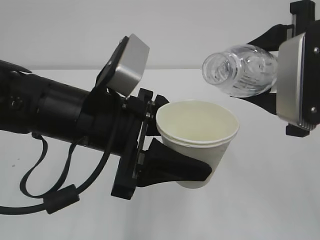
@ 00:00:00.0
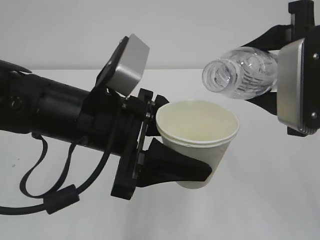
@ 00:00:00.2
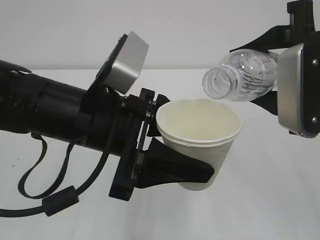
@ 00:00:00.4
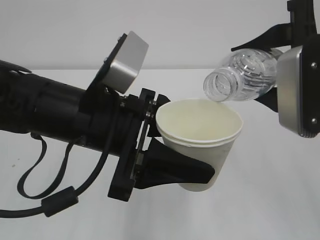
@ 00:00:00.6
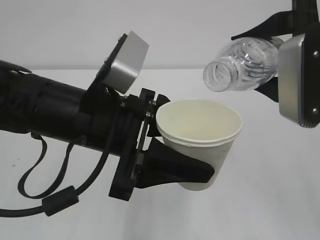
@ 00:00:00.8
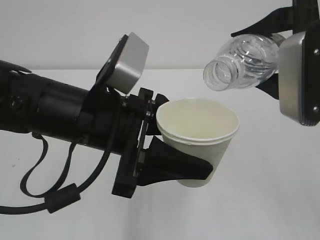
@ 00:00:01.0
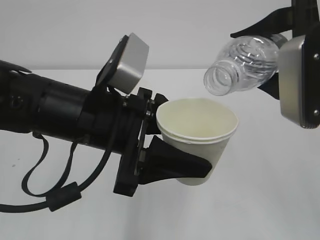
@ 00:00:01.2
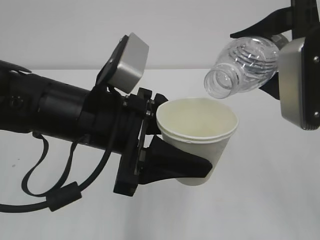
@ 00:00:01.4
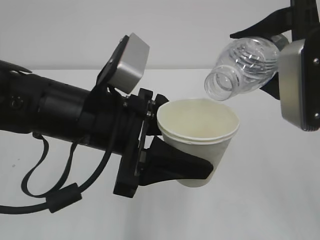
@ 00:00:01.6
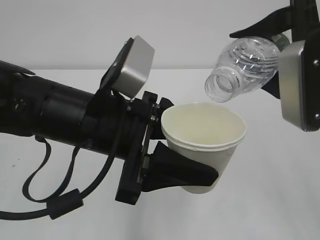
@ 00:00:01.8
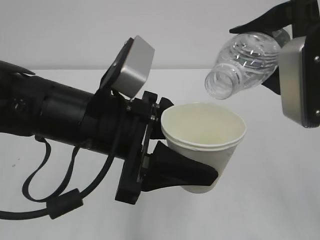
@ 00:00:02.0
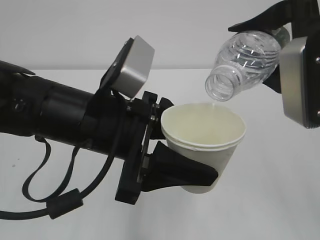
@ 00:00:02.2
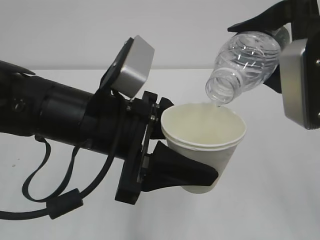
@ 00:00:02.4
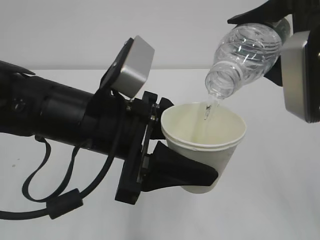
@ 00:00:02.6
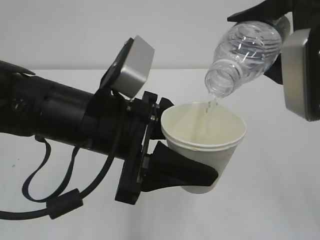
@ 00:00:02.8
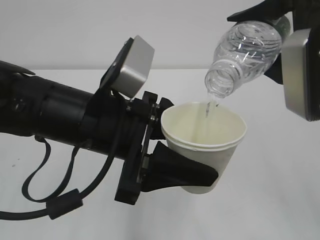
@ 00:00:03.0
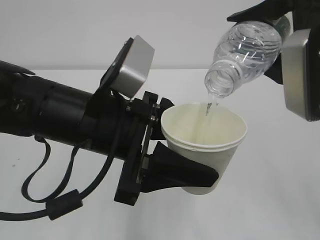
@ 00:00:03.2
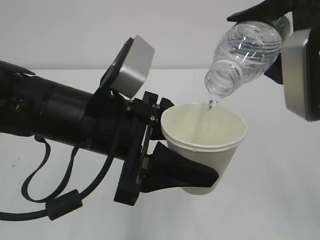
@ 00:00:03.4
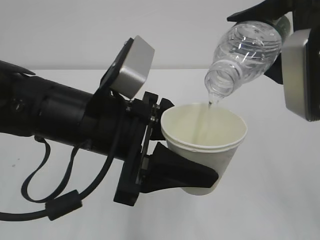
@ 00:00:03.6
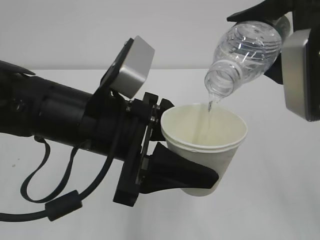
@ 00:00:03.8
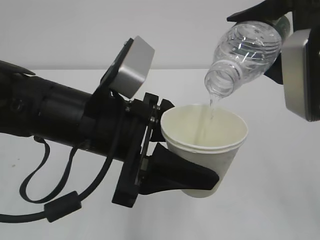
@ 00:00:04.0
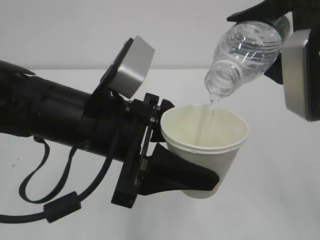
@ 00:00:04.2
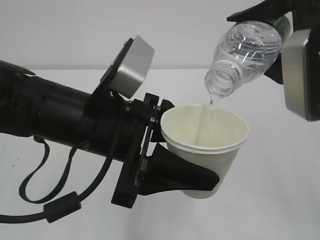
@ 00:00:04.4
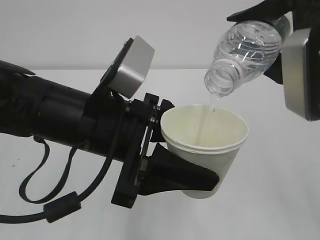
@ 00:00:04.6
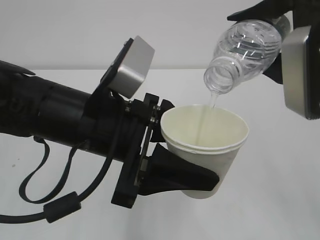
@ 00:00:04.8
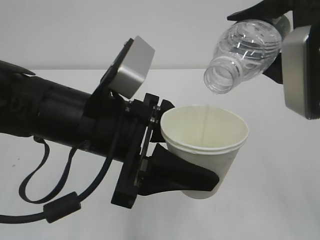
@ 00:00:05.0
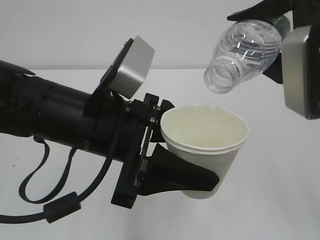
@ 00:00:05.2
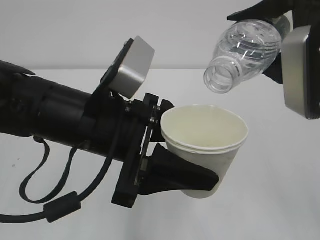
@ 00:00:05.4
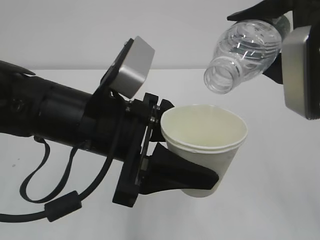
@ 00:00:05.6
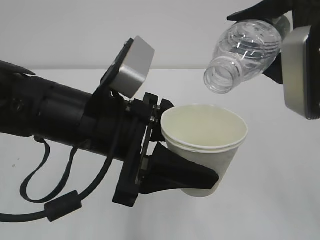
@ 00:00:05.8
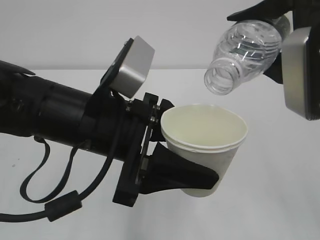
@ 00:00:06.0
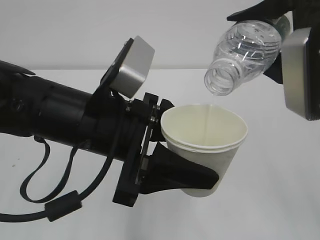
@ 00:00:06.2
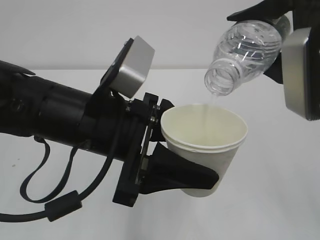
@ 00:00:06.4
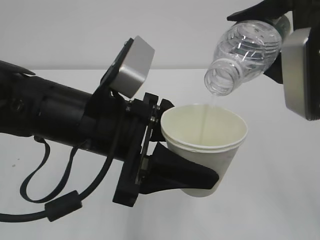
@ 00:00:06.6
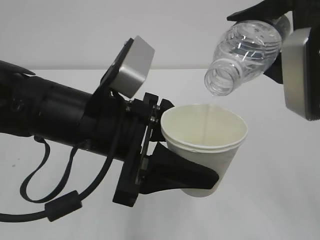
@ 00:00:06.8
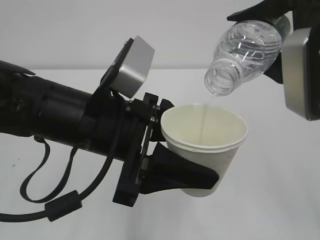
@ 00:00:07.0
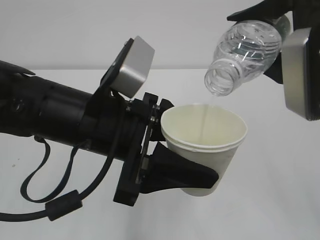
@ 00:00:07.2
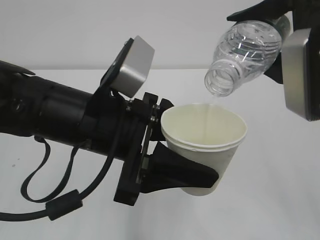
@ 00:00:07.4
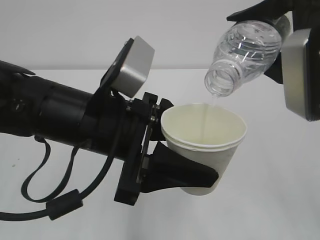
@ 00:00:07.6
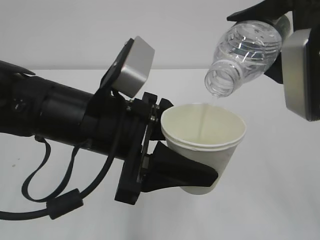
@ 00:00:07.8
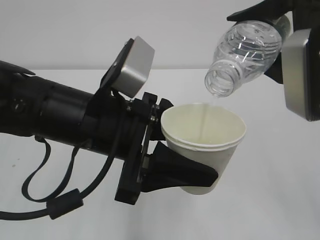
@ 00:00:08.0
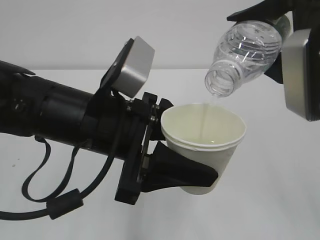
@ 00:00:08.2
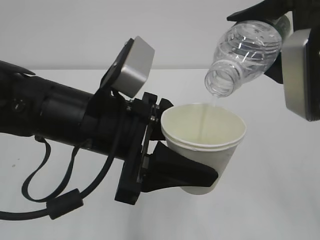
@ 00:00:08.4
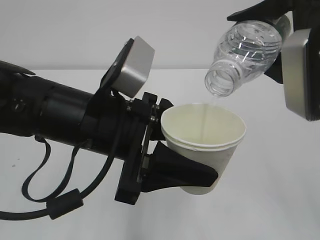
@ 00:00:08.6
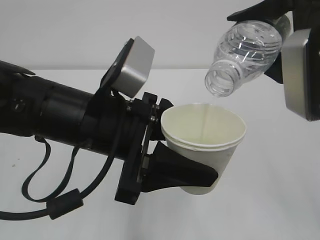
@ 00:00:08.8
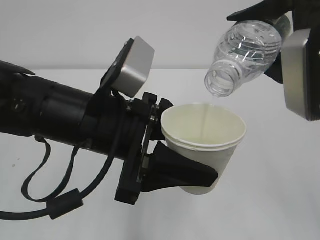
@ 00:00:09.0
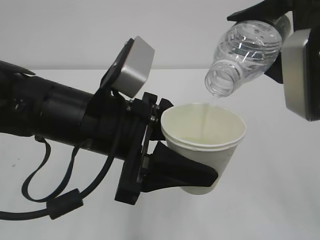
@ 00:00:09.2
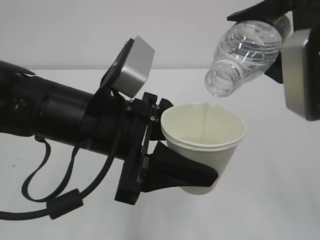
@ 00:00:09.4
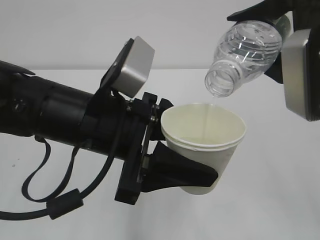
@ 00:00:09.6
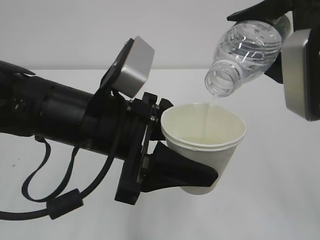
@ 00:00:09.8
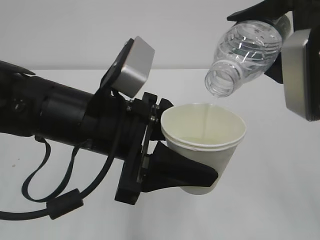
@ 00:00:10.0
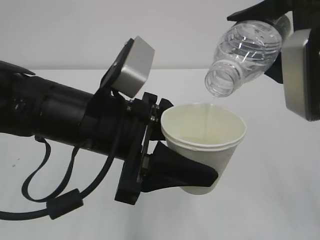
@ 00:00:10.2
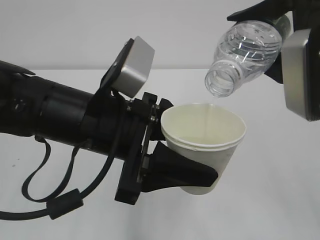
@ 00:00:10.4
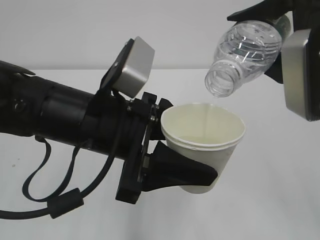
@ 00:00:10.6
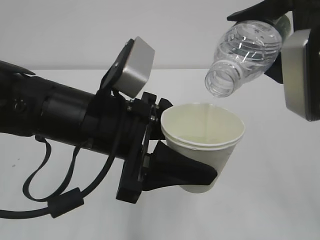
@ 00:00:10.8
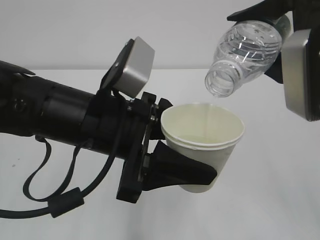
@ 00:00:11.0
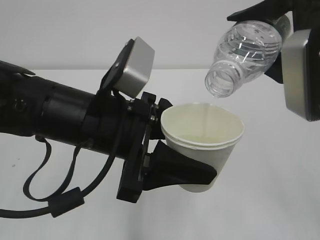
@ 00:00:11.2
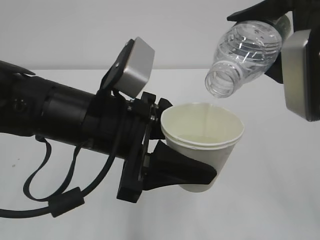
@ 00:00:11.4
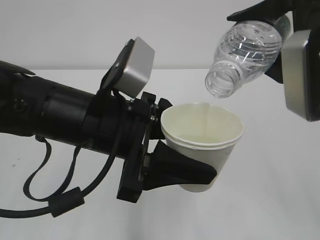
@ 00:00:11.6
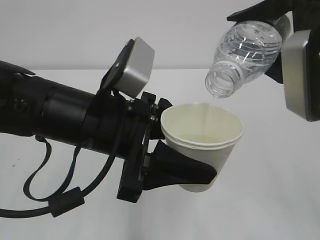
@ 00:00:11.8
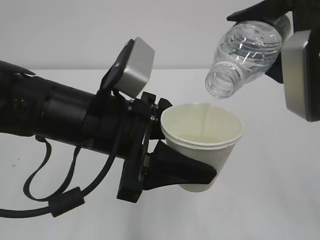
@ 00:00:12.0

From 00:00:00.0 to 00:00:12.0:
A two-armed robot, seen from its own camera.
From 00:00:00.0 to 00:00:01.6: There are only small adjustments of the grippers.
From 00:00:01.6 to 00:00:03.0: There are only small adjustments of the grippers.
From 00:00:03.0 to 00:00:12.0: The two grippers keep their place.

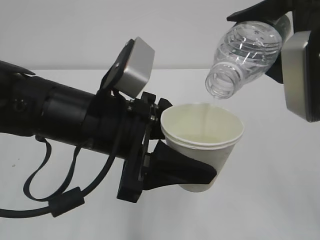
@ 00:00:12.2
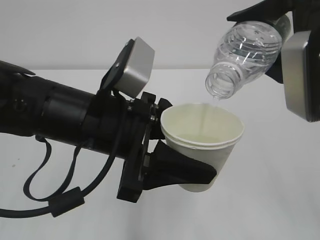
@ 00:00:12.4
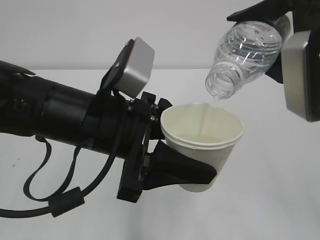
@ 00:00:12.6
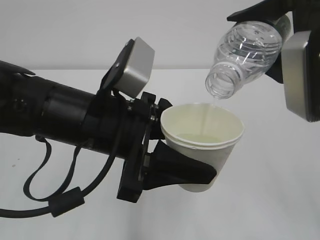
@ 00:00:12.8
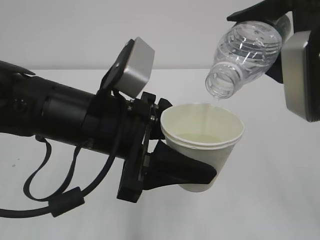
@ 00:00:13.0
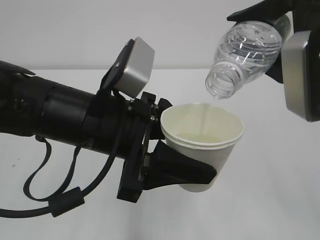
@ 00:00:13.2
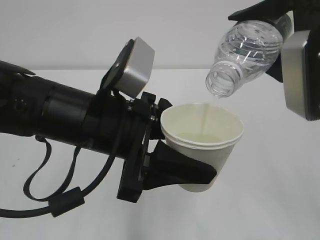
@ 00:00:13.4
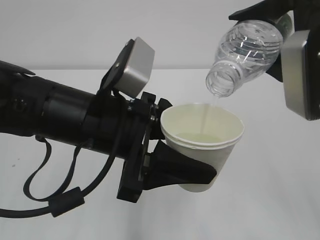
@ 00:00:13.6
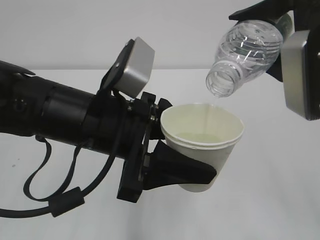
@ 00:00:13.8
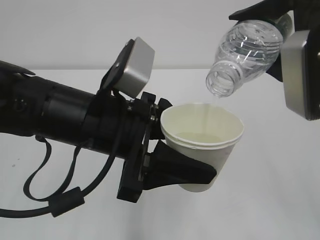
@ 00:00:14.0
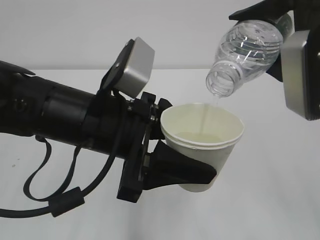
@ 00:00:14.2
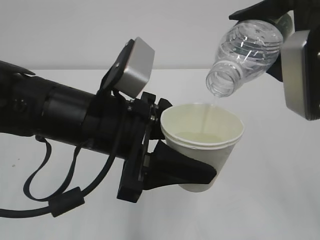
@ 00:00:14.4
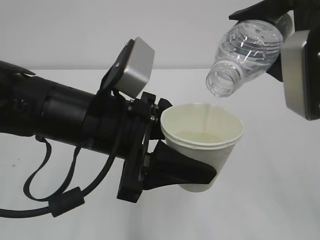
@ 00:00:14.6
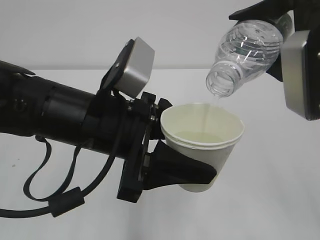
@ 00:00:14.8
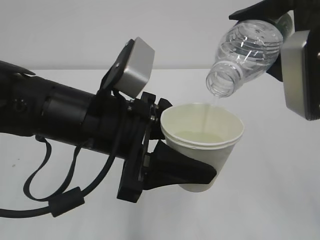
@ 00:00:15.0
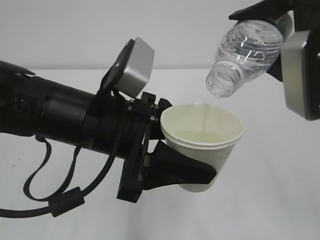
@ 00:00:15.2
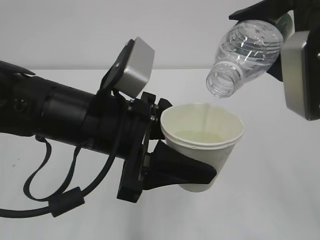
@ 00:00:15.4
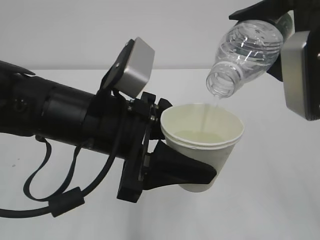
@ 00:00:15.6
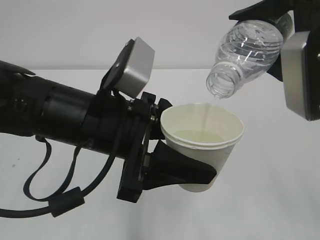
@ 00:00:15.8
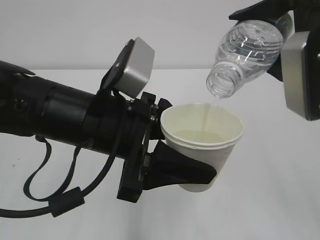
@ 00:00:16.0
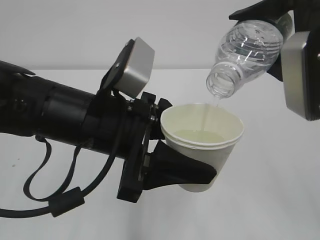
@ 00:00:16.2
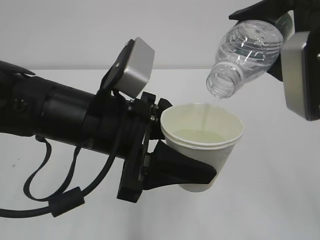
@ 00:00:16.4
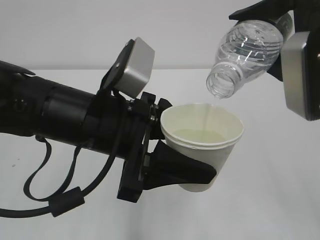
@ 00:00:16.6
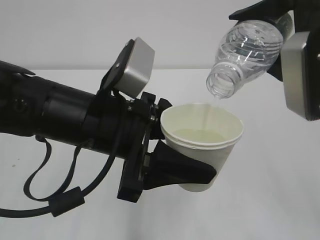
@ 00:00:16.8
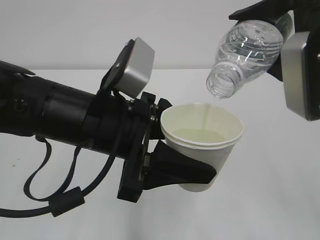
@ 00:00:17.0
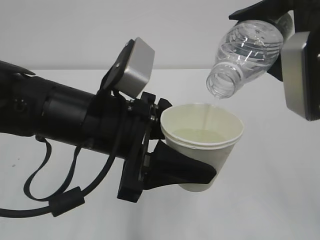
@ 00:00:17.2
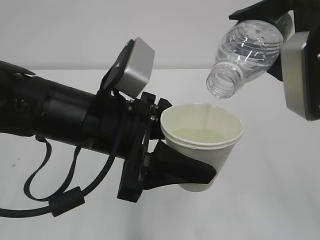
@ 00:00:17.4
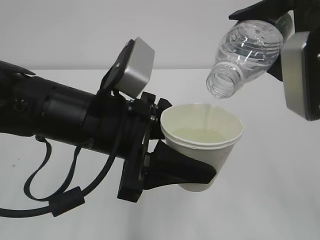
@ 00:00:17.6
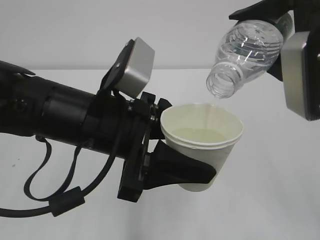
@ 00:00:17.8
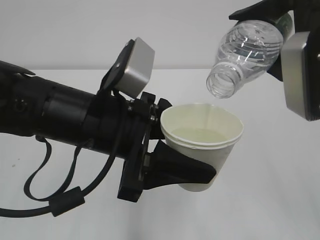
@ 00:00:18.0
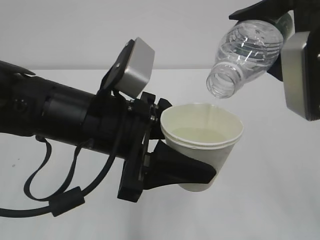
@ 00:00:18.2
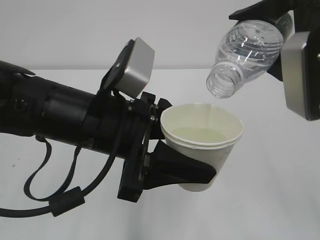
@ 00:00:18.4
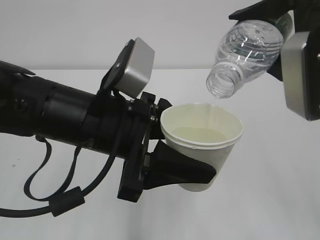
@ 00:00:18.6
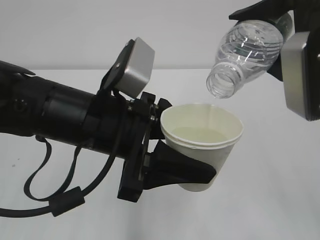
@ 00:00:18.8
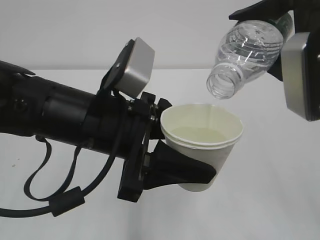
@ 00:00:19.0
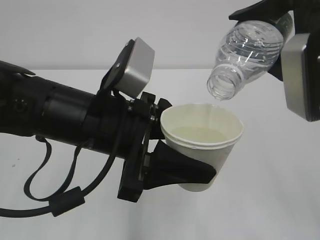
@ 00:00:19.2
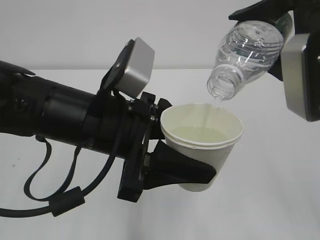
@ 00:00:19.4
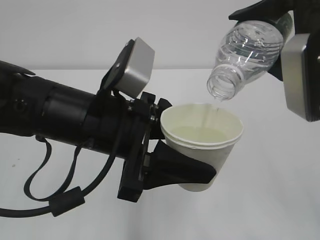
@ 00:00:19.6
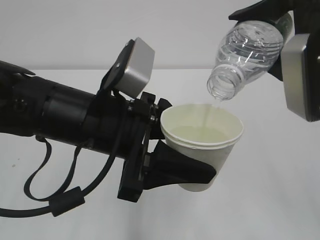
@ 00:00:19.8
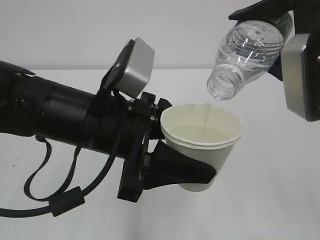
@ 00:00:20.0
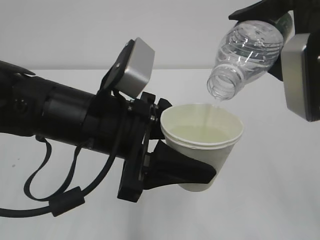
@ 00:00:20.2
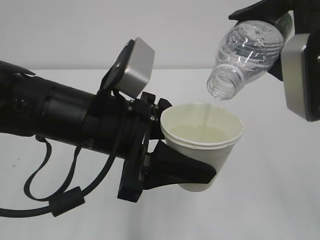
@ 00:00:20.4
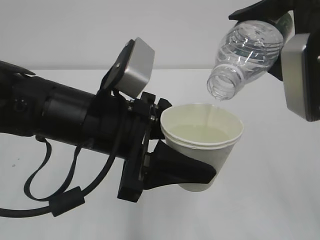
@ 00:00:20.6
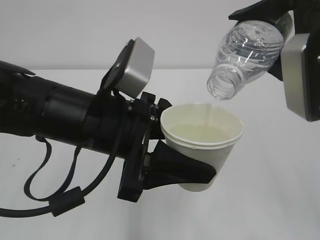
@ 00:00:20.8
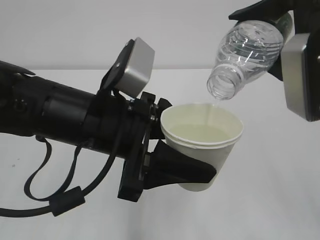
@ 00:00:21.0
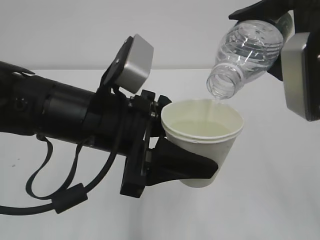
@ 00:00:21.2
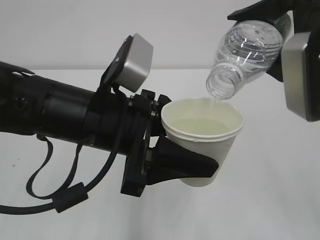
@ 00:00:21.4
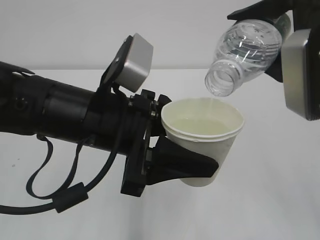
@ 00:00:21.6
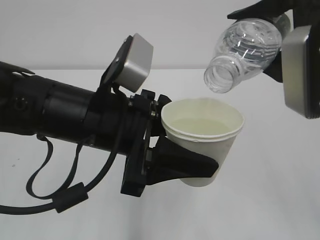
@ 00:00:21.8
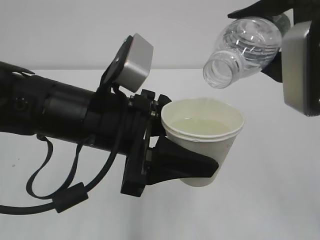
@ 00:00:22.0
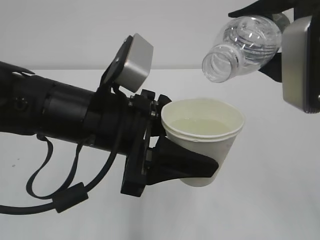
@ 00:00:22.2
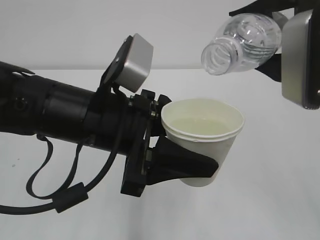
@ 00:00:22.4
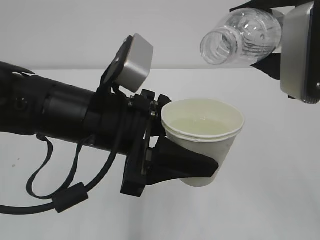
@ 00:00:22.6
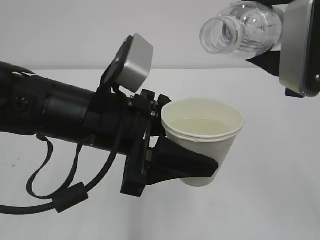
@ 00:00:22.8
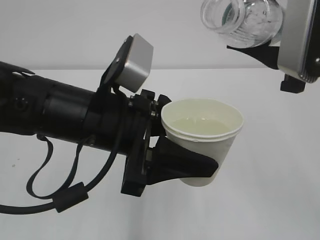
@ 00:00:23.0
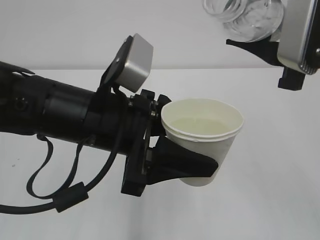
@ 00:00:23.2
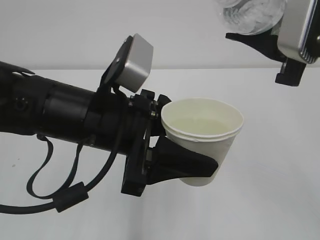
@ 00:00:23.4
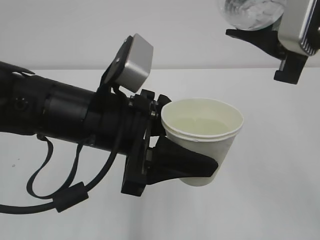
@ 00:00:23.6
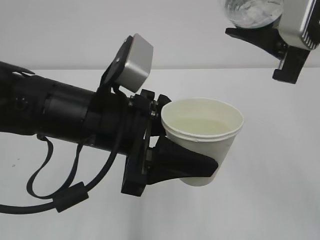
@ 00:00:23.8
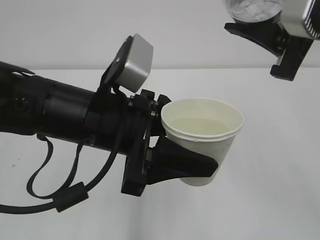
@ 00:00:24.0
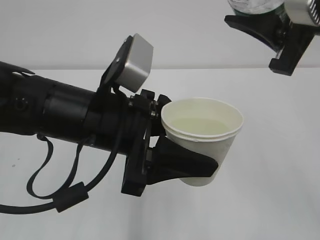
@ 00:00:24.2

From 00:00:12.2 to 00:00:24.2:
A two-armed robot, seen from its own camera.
From 00:00:12.2 to 00:00:21.2: Neither gripper changes place.
From 00:00:21.2 to 00:00:22.6: The grippers stay close to where they were, moving slightly.
